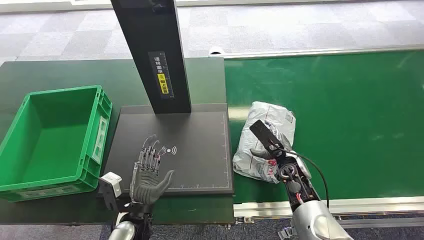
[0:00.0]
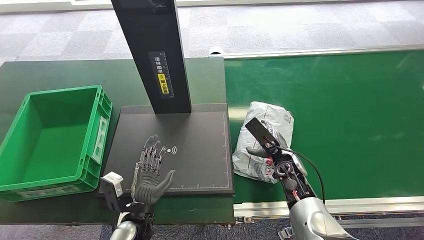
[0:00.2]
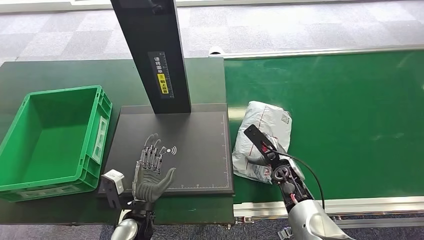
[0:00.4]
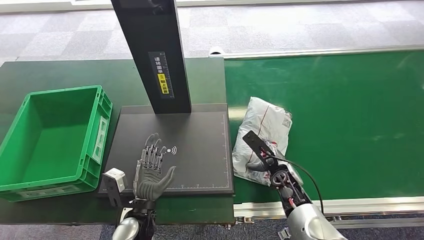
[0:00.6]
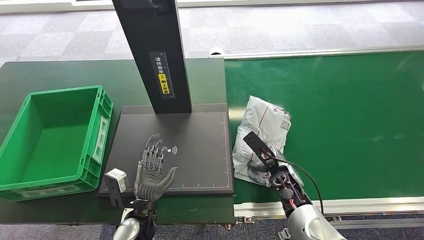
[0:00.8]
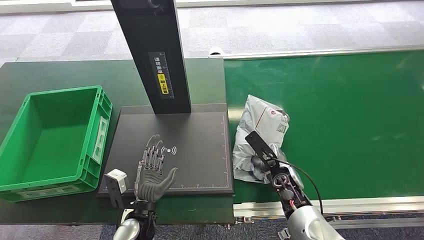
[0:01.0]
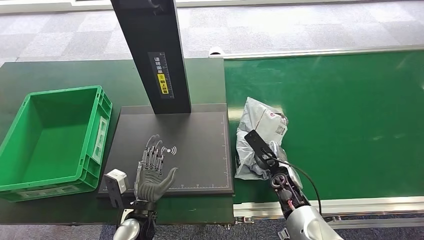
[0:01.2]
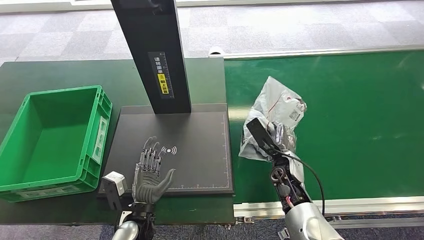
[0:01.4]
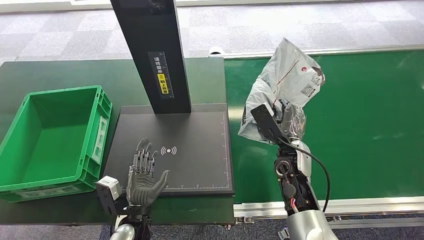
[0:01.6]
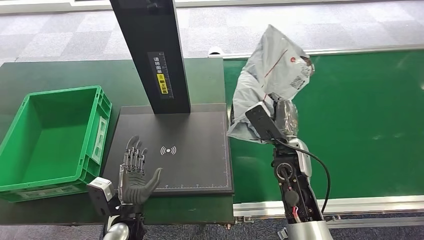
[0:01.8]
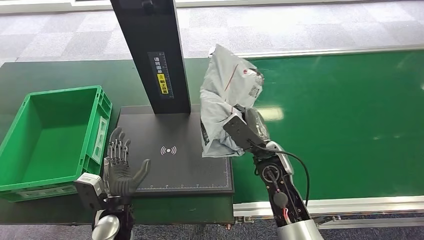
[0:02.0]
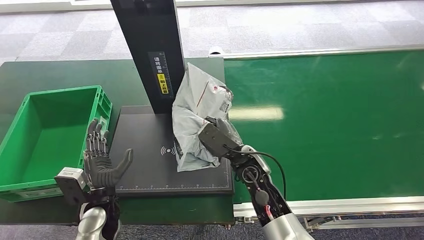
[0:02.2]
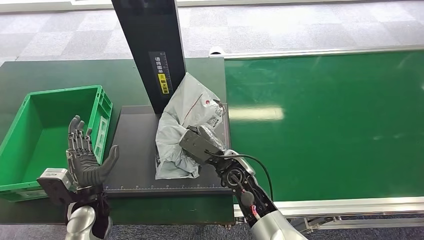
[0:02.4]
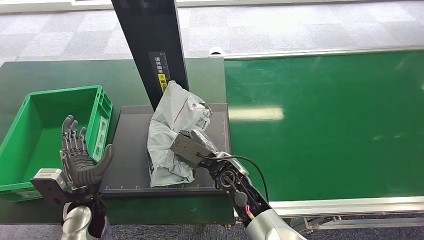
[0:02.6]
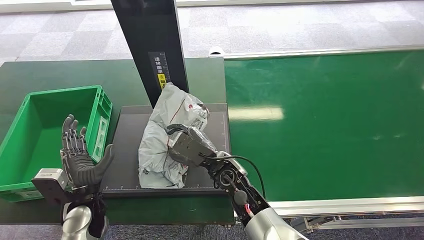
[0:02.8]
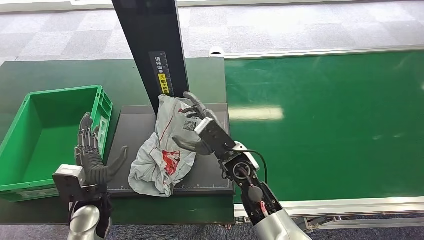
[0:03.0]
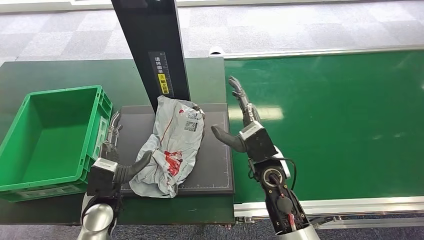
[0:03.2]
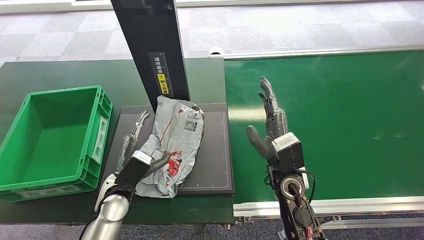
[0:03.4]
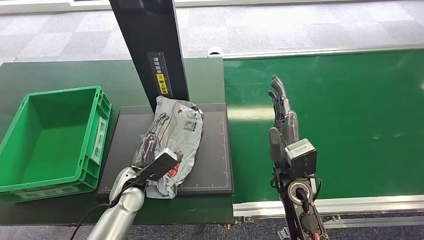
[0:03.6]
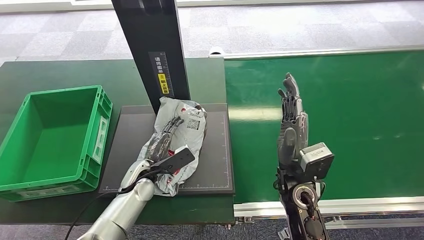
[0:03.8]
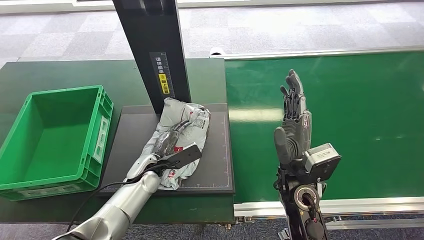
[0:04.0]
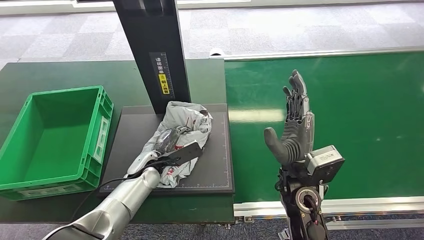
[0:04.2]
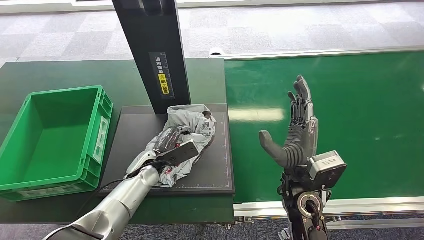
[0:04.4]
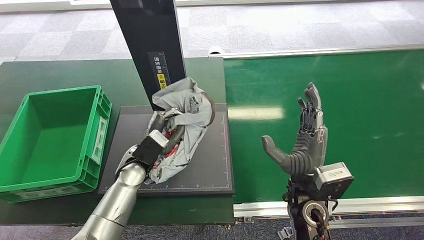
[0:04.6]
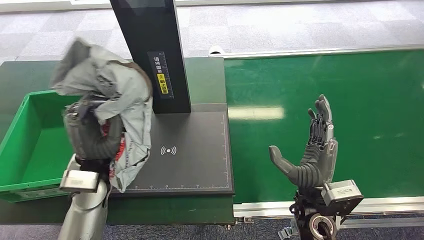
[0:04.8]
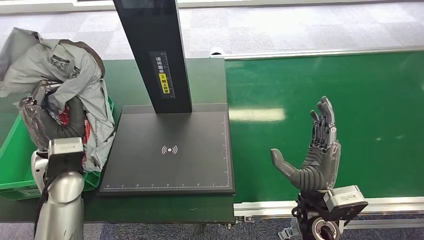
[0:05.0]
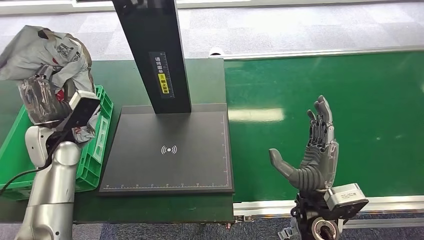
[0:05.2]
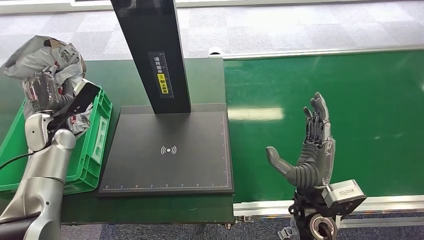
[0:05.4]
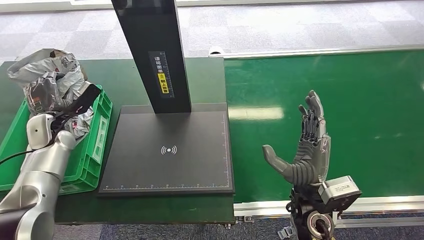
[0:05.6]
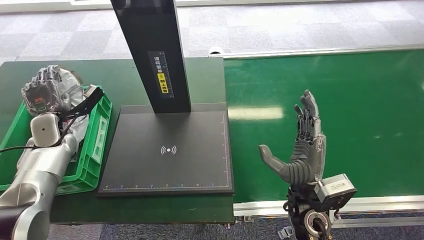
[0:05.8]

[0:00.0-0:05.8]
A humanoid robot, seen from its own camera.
Step, 0:00.0 to 0:01.2: Pick up the package from the conveyor belt.
Step, 0:01.6 to 0:02.8: Place the package onto the inbound machine.
Step, 0:03.0 to 0:04.6: Pick up the package from the inbound machine.
Step, 0:04.8 to 0:05.8: Place the package into the parcel locker.
0:01.4 to 0:02.8: The hands both shift to the left by roughly 15 cm.
